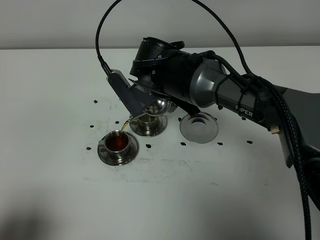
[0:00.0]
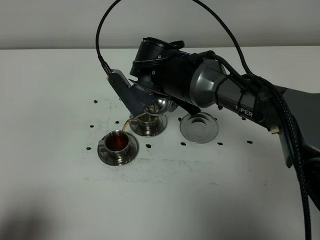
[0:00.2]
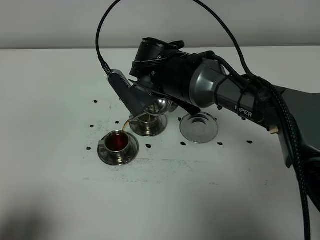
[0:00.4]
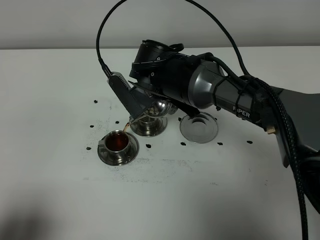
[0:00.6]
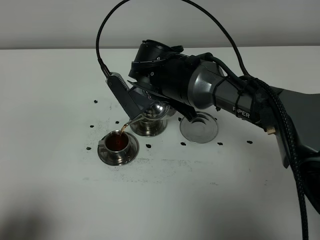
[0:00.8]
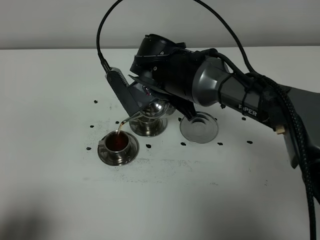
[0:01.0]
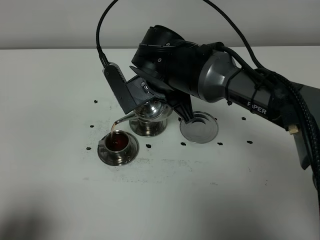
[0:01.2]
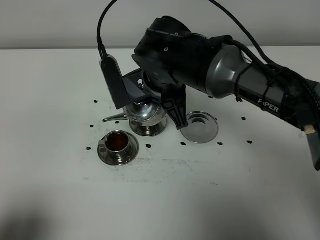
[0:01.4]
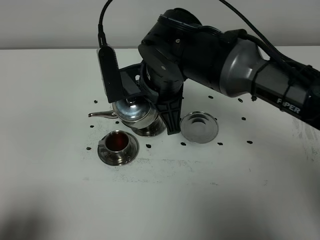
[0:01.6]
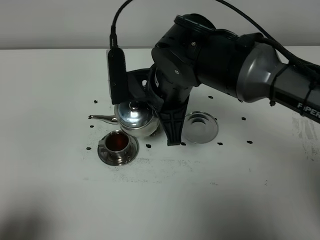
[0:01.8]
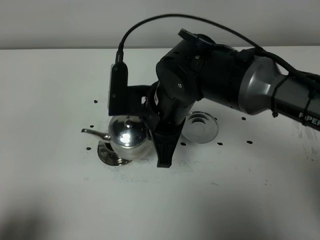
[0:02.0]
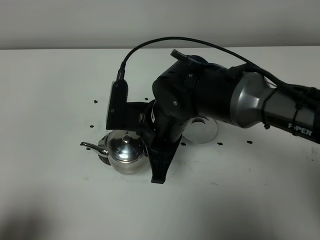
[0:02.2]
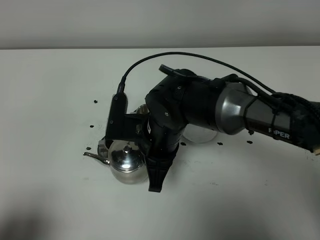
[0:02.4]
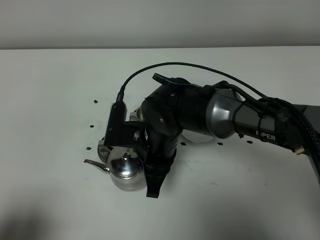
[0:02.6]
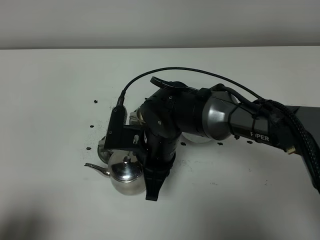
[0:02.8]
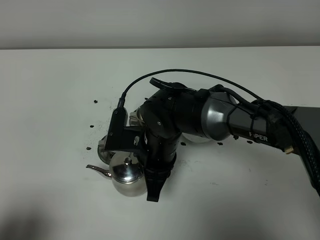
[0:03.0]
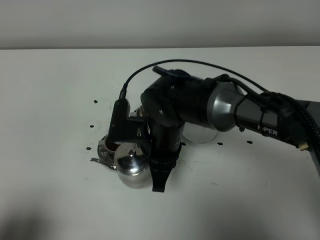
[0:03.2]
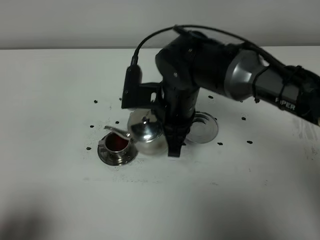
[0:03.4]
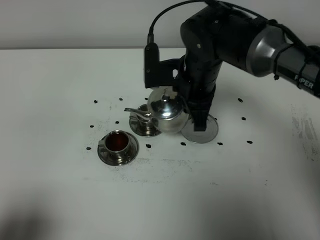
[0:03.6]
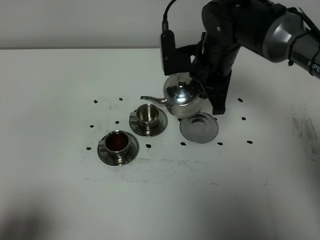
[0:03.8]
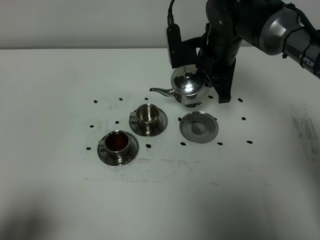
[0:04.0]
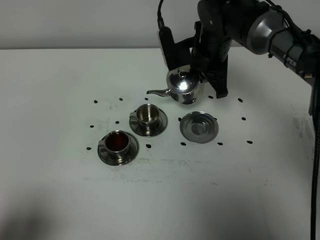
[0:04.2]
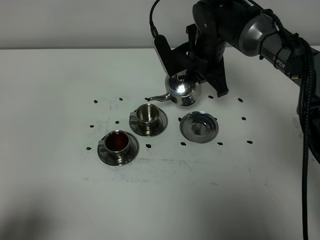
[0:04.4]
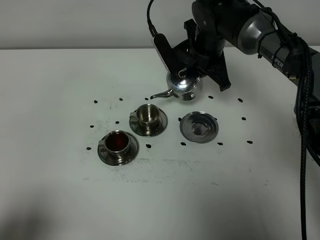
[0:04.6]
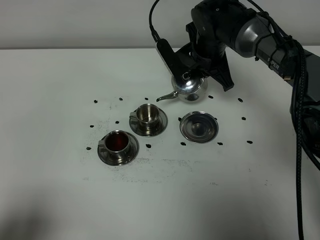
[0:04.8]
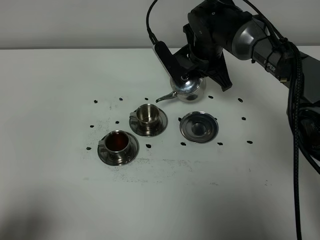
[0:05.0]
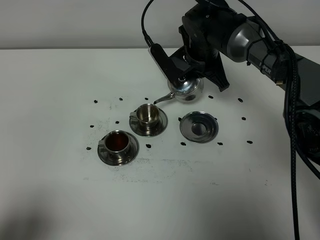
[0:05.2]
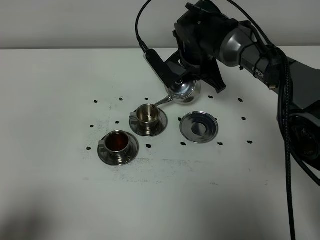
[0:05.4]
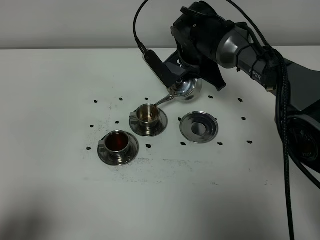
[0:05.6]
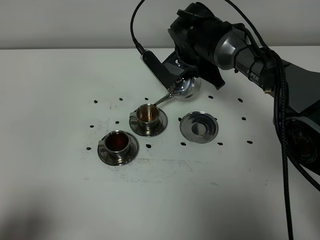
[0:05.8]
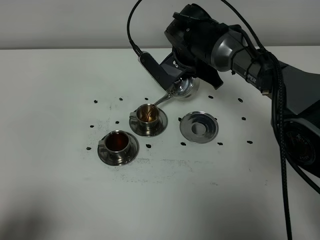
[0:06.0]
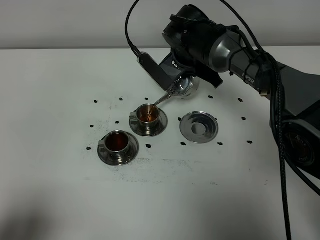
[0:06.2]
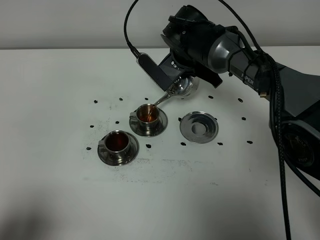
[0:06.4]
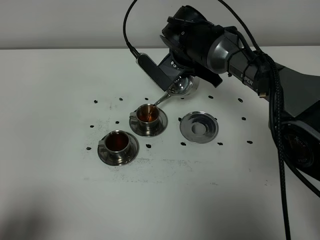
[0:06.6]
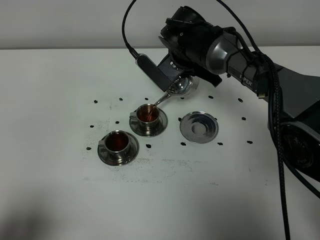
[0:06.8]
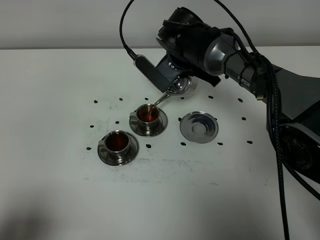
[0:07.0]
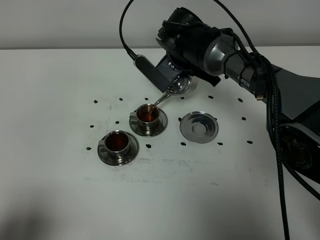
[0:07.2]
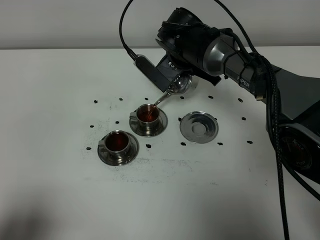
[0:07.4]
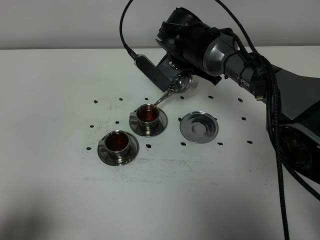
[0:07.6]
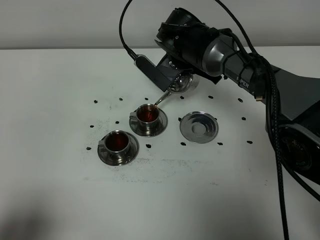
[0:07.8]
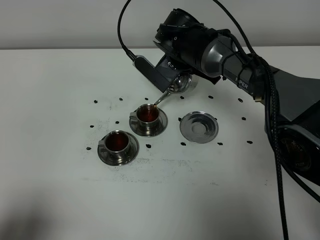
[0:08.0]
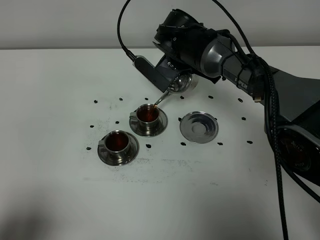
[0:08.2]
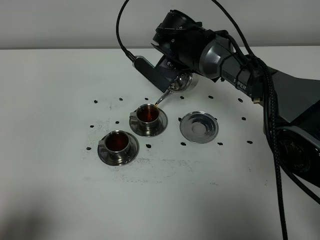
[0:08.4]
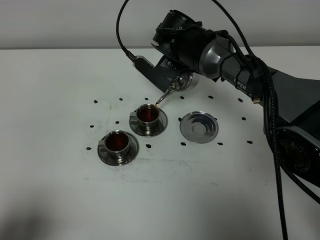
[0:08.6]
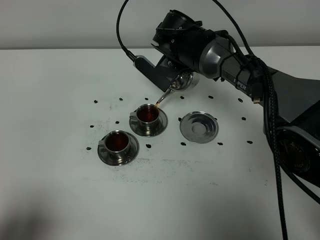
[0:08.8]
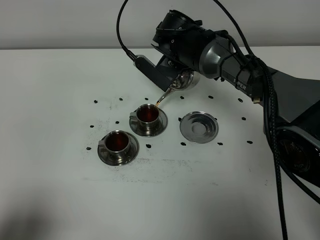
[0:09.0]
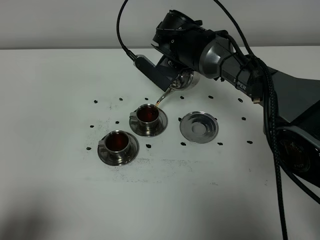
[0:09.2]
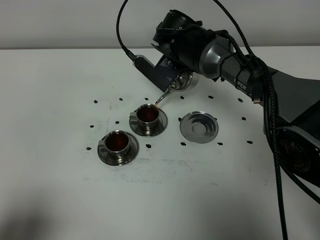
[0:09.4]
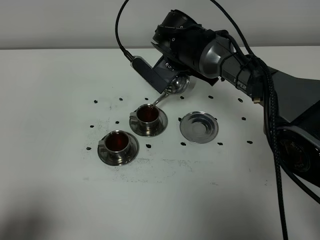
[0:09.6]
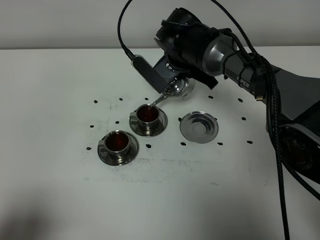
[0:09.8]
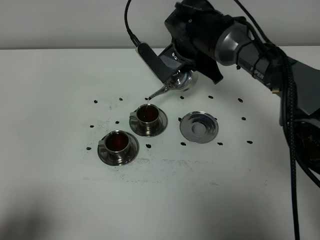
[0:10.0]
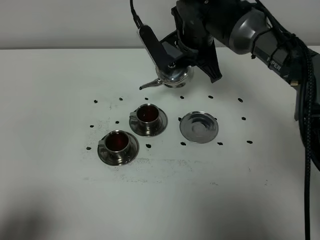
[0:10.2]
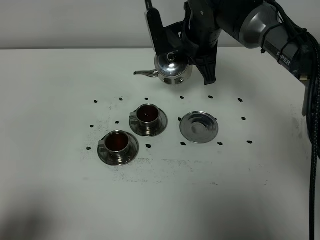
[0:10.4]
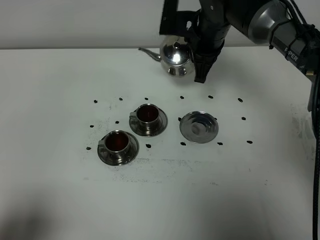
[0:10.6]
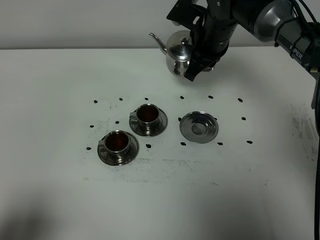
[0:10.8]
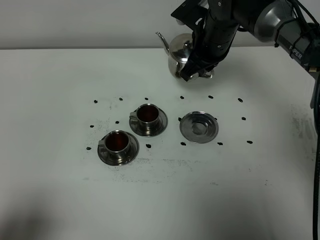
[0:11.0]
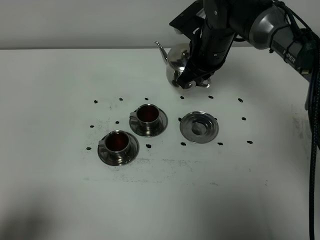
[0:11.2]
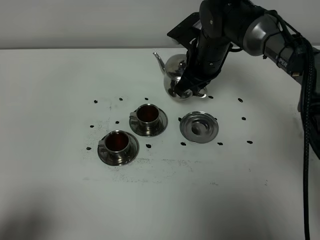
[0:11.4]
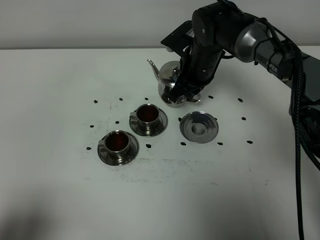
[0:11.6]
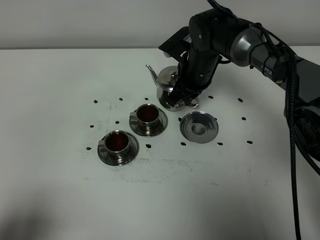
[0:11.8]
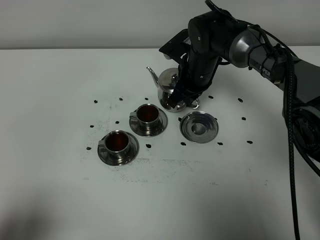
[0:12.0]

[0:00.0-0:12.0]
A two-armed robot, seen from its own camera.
Task of the whole recording: grasp the stainless steel teapot and pour the tea into the two stainless steel teacups one by one, put the stainless steel teapot back in its original place.
Step, 0:00.0 to 0:10.0: Pour tea into the teacup with the right gripper.
0:00.0 to 0:01.6: The right gripper shifts by roughly 5 cm.
0:01.6 to 0:03.0: The right gripper goes some 10 cm downward.
0:03.0 to 0:04.4: The right gripper heads forward and to the right, covering about 20 cm.
0:06.0 to 0:09.0: The grippers stay close to where they were, moving slightly.
0:09.0 to 0:10.4: The right gripper shifts by roughly 5 cm.
0:10.4 to 0:12.0: The right gripper goes about 10 cm downward.

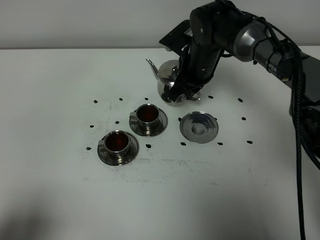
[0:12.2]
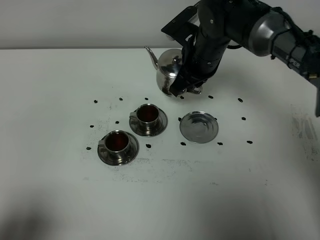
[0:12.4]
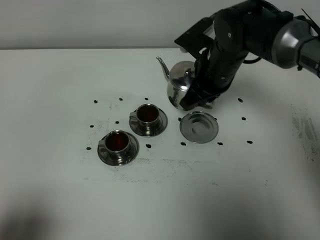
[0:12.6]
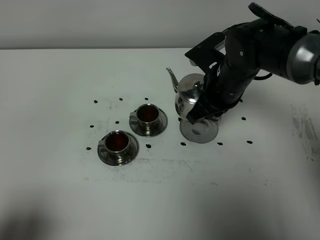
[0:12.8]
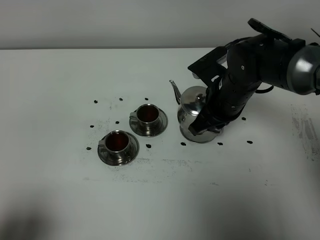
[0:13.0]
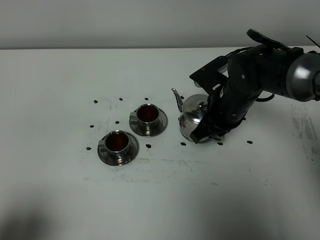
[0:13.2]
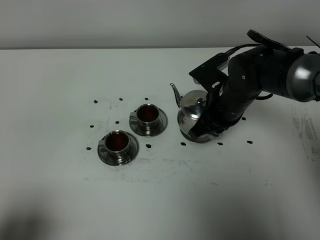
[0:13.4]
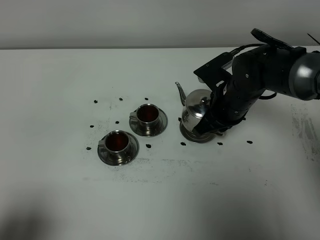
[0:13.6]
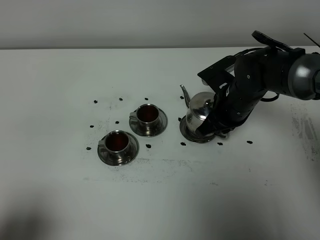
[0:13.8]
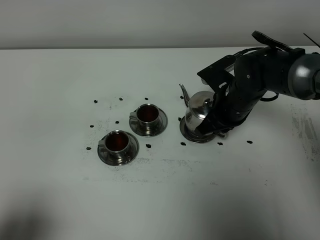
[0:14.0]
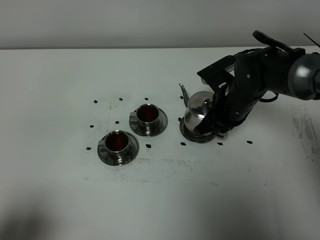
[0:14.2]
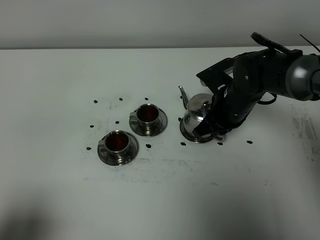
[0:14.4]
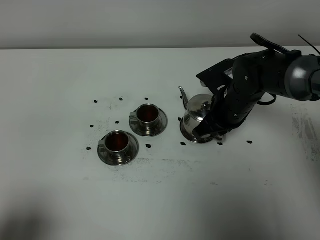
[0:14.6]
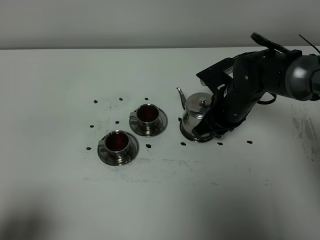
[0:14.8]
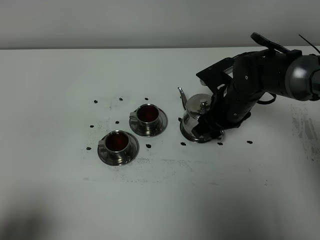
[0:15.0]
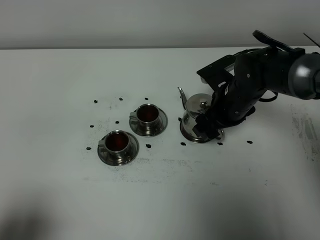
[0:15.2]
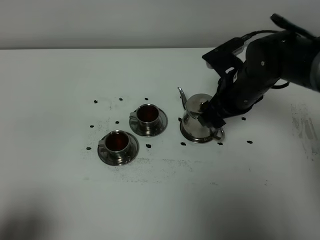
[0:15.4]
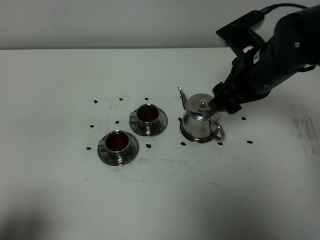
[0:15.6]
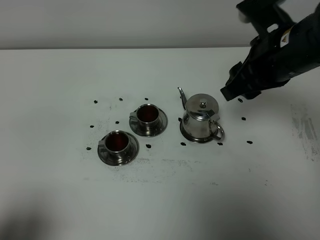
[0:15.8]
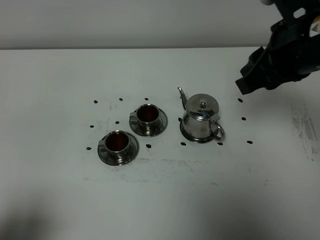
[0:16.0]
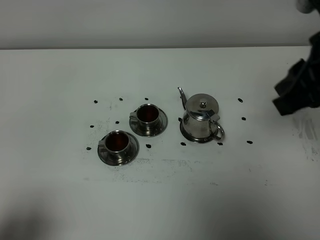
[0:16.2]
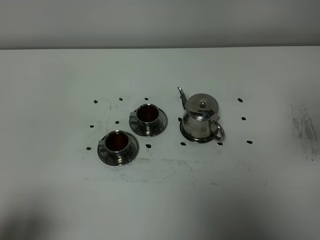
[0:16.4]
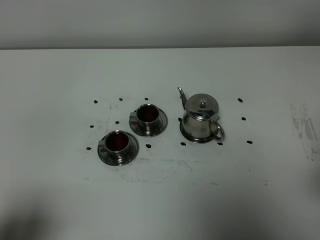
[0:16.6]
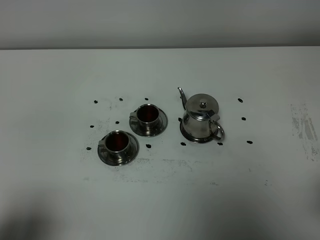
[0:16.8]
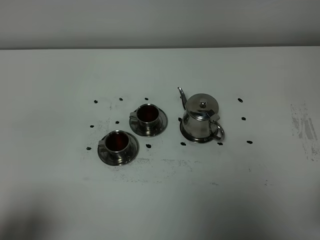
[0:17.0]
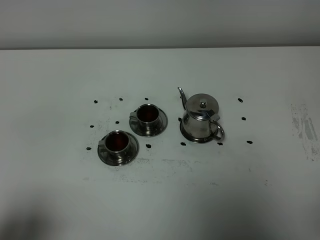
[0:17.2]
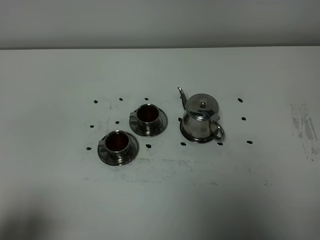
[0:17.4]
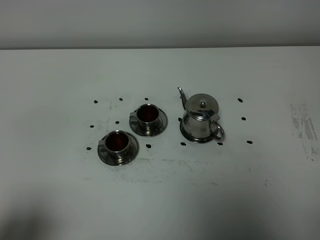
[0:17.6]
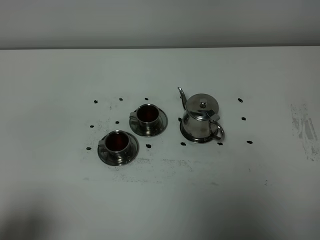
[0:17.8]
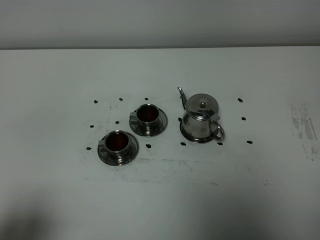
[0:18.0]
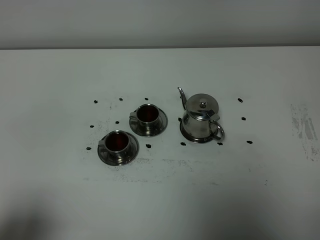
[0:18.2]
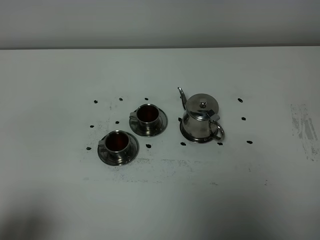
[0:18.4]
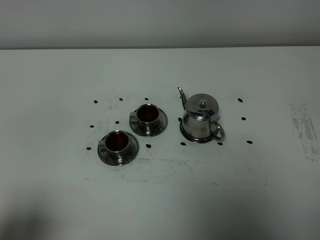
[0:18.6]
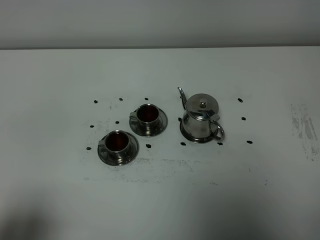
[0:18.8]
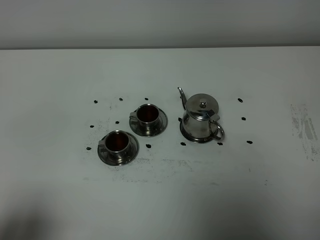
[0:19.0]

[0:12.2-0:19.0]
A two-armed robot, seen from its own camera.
Task of the whole recording: grasp the stainless steel teapot and pour the tea into the two stainless steel teacups one by one, put the stainless steel teapot back in its original place.
0:12.2 to 0:13.6: The right gripper goes roughly 10 cm backward and to the right.
0:13.6 to 0:15.0: The right gripper opens up.
0:15.0 to 0:16.2: The right gripper moves upward and backward, some 30 cm, and closes.
0:16.2 to 0:17.6: The right gripper moves backward, downward and to the right, some 25 cm.
0:17.6 to 0:19.0: Neither gripper changes place.

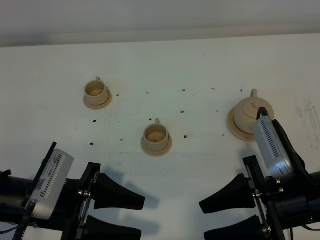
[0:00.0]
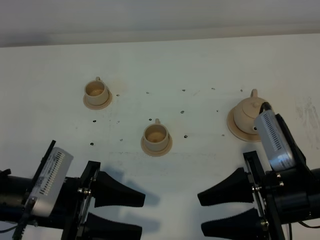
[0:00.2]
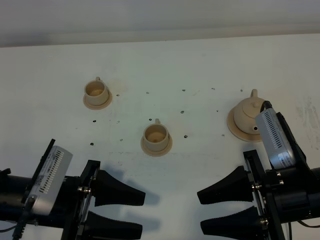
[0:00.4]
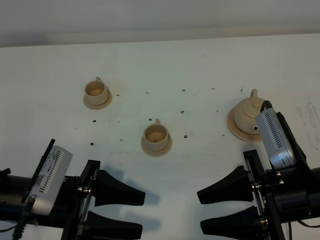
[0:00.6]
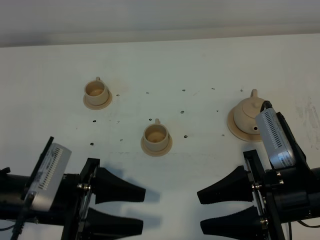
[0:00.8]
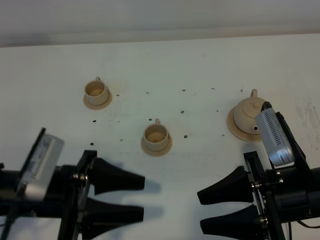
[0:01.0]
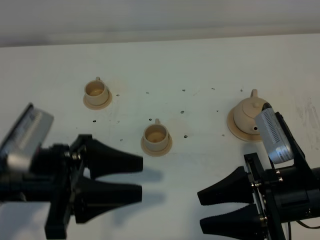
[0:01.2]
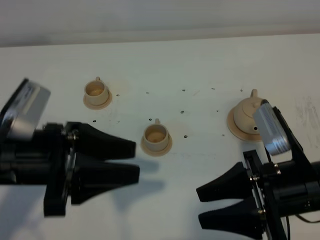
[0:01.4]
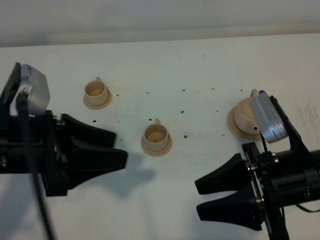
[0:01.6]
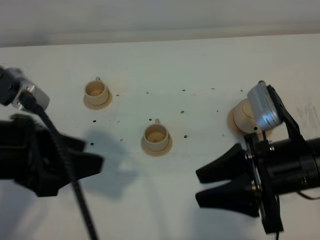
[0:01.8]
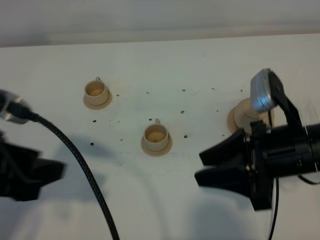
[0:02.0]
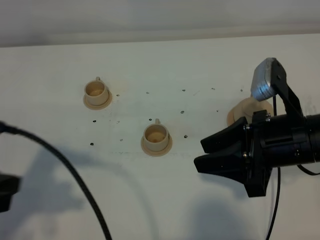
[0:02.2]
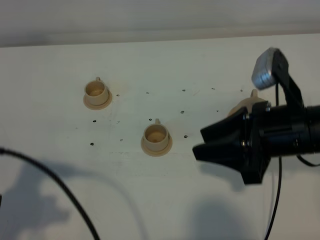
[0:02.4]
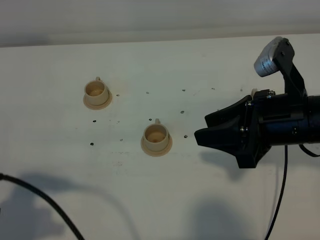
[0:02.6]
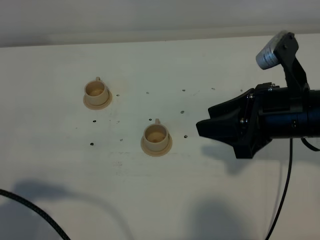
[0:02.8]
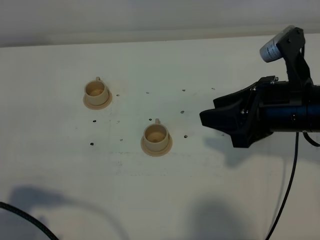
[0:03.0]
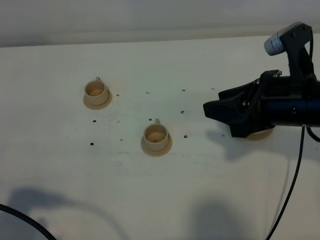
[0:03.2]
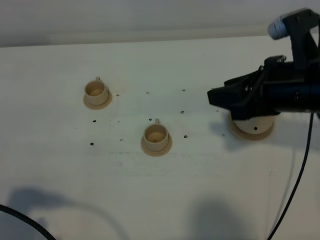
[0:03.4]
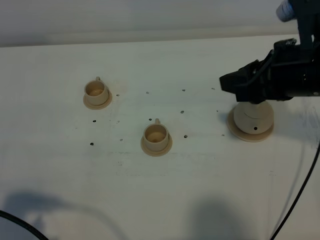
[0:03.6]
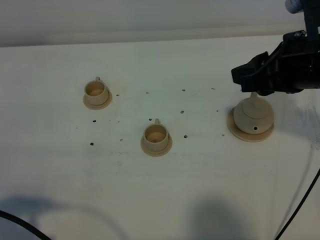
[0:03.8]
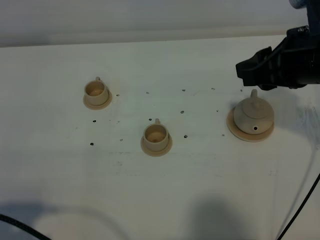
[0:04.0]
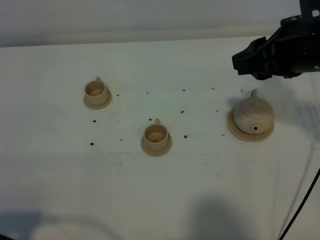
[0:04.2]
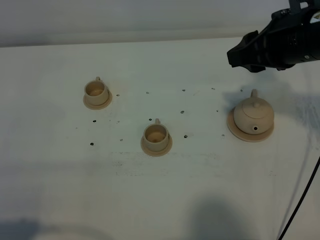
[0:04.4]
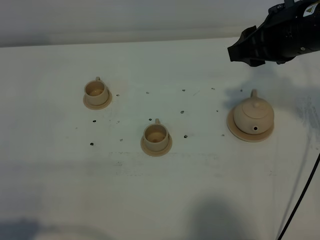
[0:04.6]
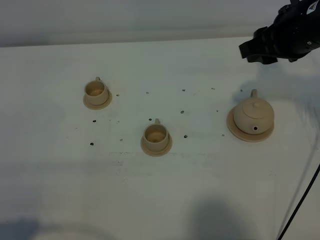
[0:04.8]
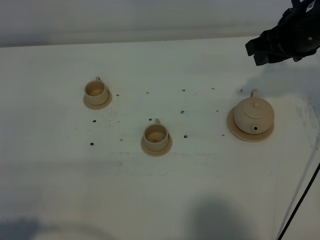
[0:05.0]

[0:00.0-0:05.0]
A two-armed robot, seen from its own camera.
Task of the whole recording: grasp the brown teapot and pour the tea into the two brown teacups one by one, put the brown teapot back in its original place.
0:00.0 to 0:01.6: The left gripper is displaced upward by approximately 10 cm.
0:01.6 to 0:03.4: The left gripper heads backward and to the left, covering roughly 15 cm, while the right gripper shifts about 10 cm forward and upward.
0:03.4 to 0:05.0: The right gripper is displaced forward by roughly 15 cm. The left gripper goes about 5 cm backward.
